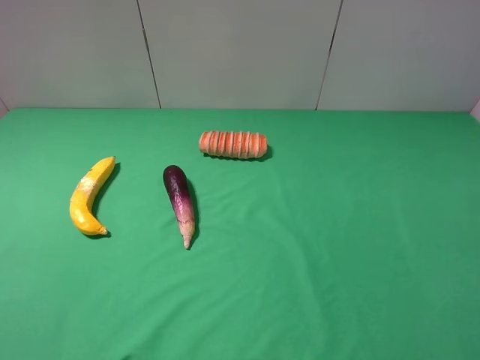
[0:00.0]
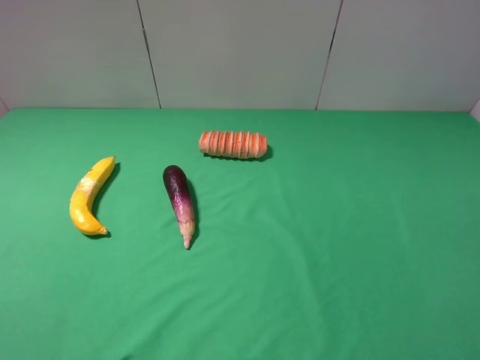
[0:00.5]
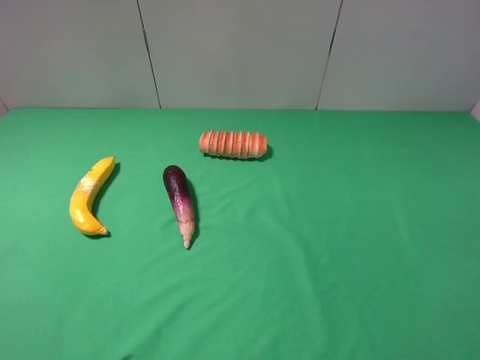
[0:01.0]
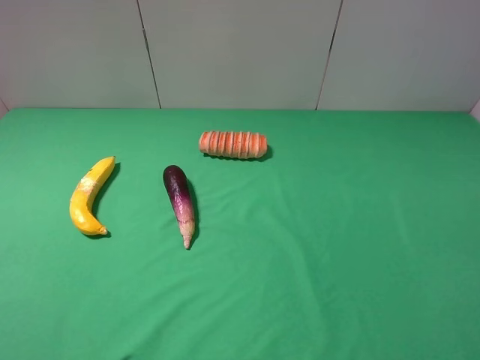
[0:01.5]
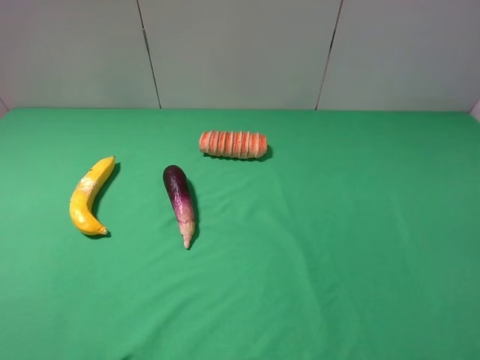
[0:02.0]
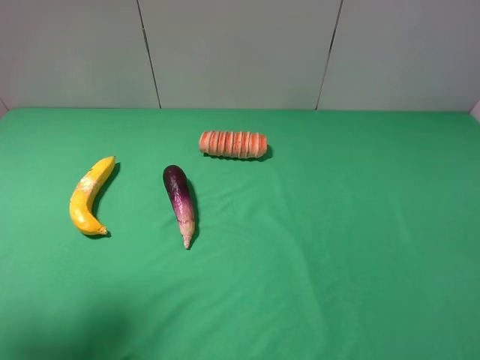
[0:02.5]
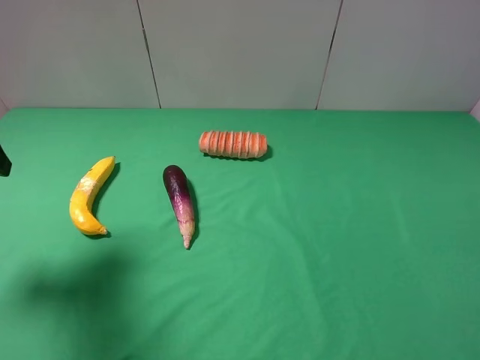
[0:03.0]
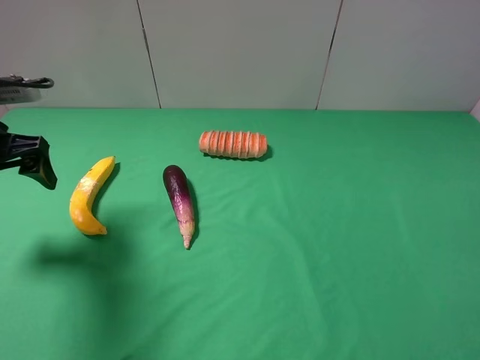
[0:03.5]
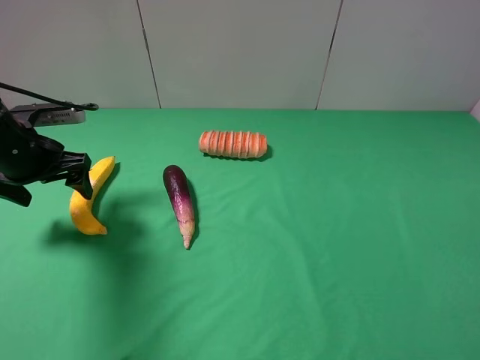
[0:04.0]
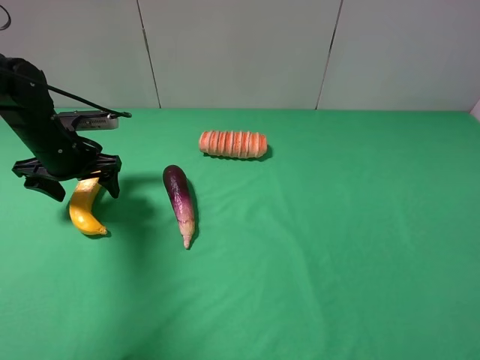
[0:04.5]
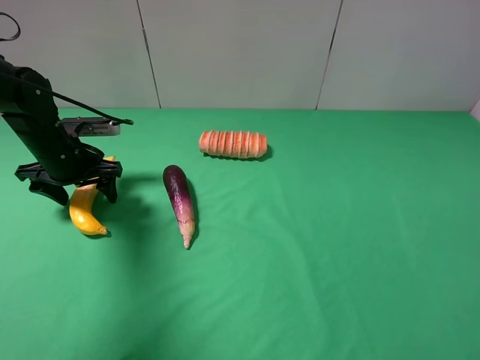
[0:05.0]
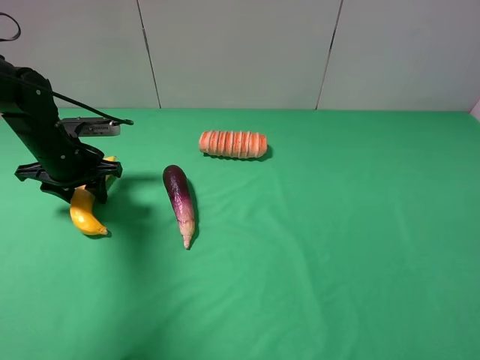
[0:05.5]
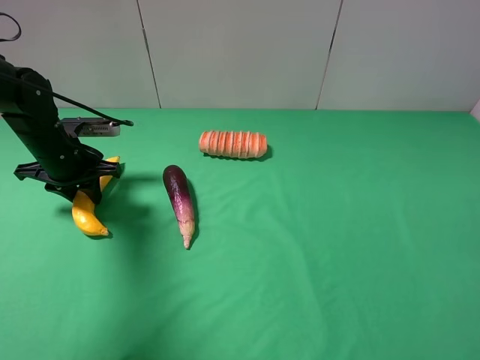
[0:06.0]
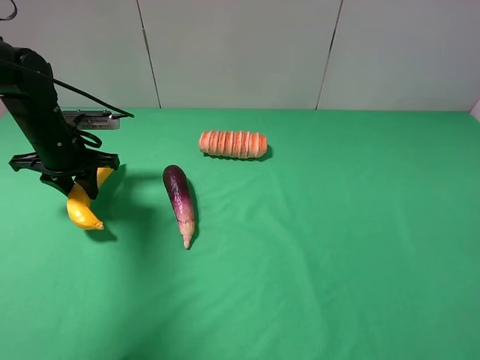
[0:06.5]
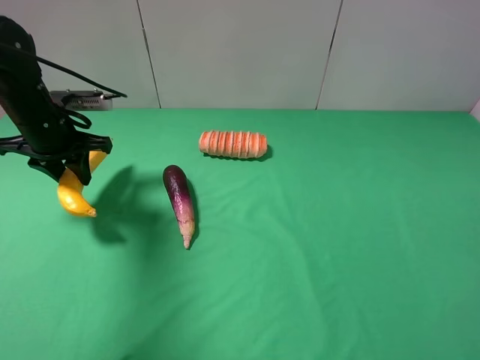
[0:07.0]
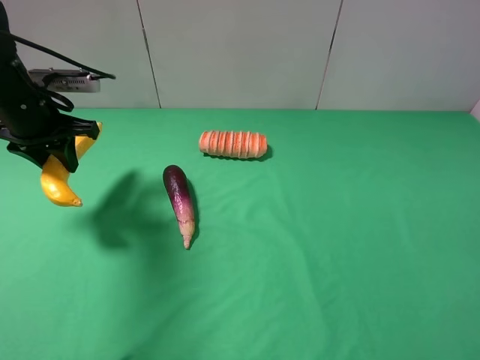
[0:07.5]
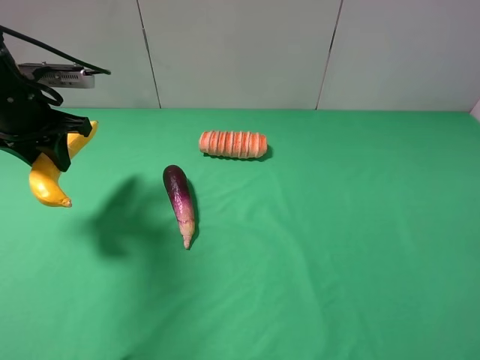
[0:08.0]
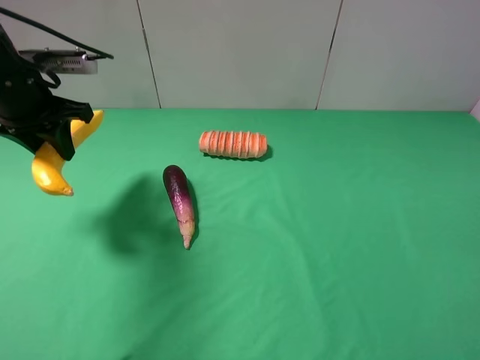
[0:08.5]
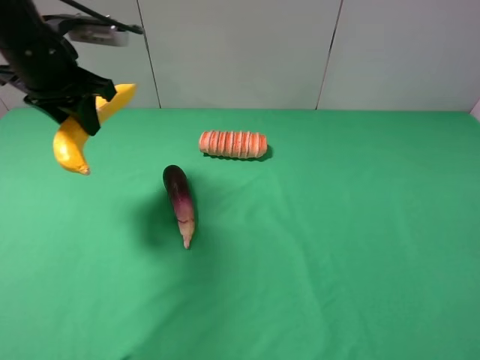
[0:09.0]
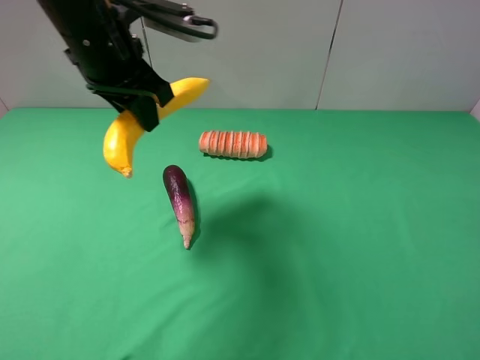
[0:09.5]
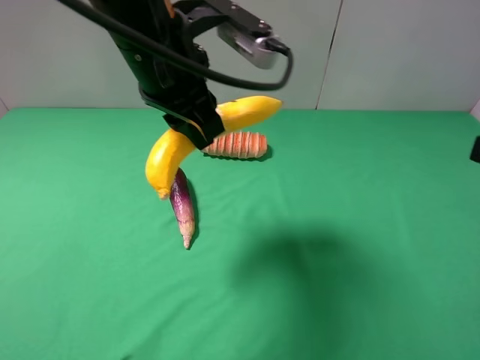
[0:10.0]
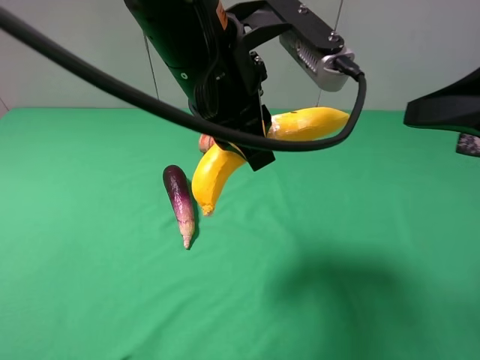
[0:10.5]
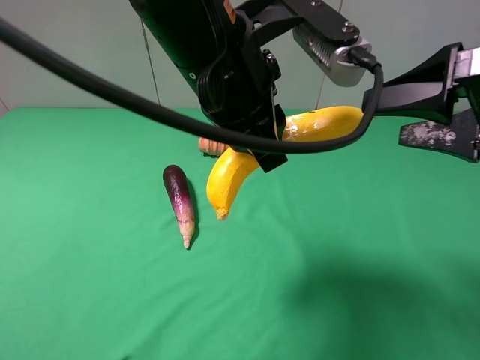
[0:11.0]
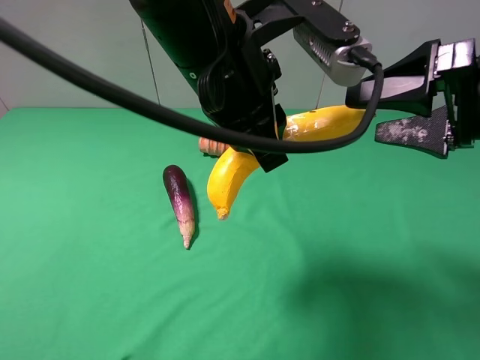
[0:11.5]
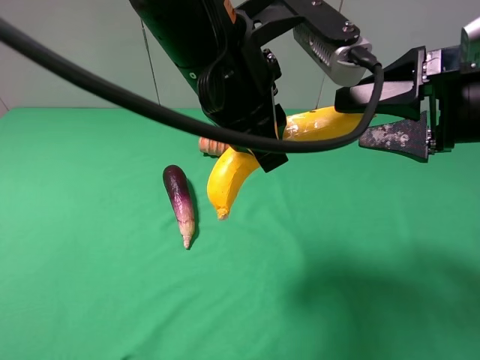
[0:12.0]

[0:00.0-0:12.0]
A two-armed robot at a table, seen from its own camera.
Task of the whole recording: use the left gripper to pick up the item and transfer it from the left gripper to the right gripper.
Step, 0:00.0 to 0:06.0: Use the left gripper to grab the banana on the left side of the table.
0:02.0 to 0:04.0: The left gripper shifts approximately 30 cm forward and downward.
0:04.0 to 0:06.0: The left gripper shifts by roughly 5 cm, and closes.
0:06.0 to 0:08.0: The left gripper heads upward, covering approximately 10 cm.
0:08.0 to 0:10.0: The right gripper is displaced forward by approximately 10 cm. The left gripper moves to the right, approximately 20 cm.
0:10.0 to 0:12.0: The left gripper goes approximately 5 cm to the right, while the right gripper heads forward, covering some 10 cm.

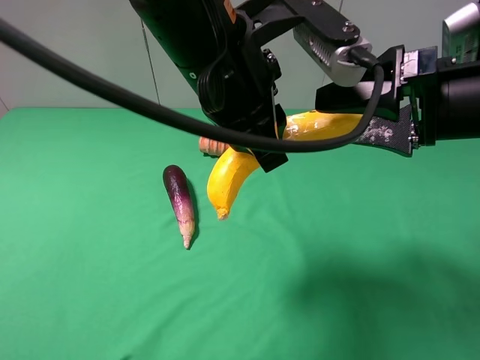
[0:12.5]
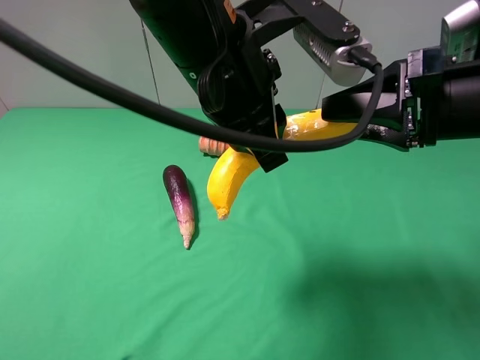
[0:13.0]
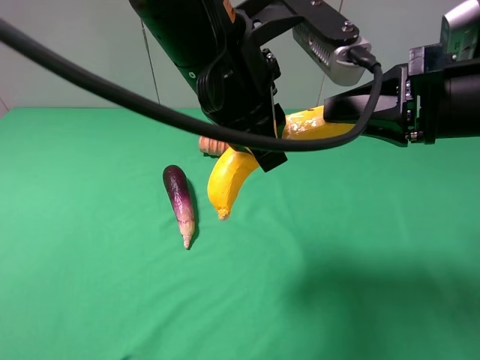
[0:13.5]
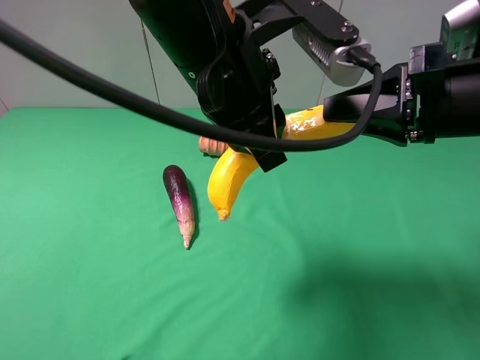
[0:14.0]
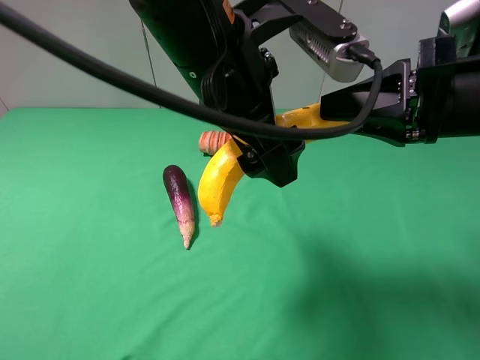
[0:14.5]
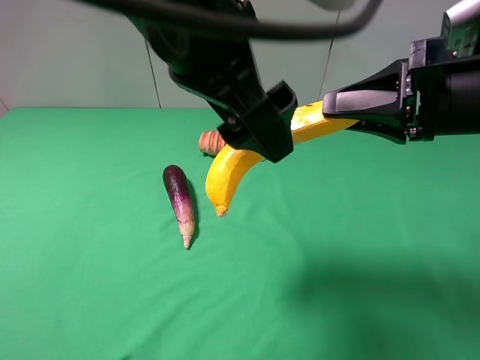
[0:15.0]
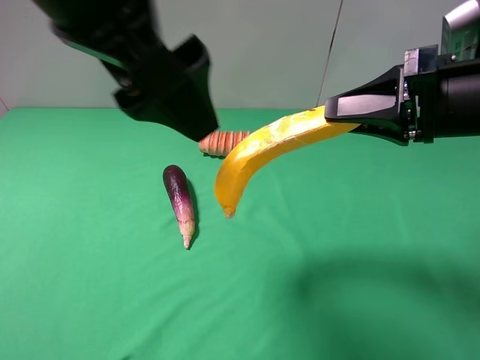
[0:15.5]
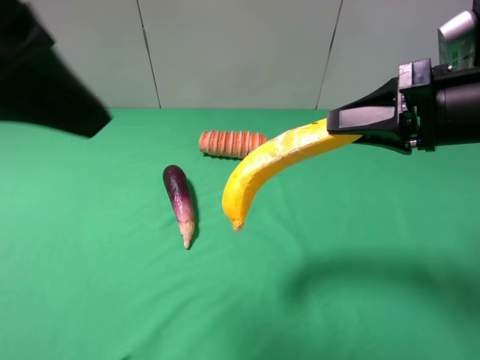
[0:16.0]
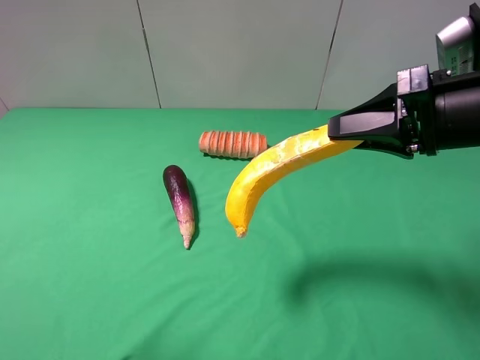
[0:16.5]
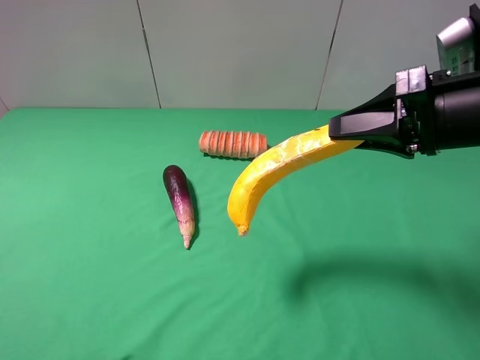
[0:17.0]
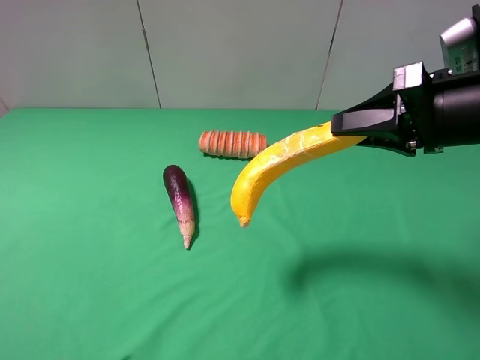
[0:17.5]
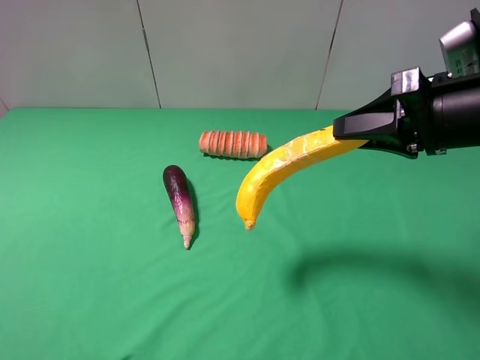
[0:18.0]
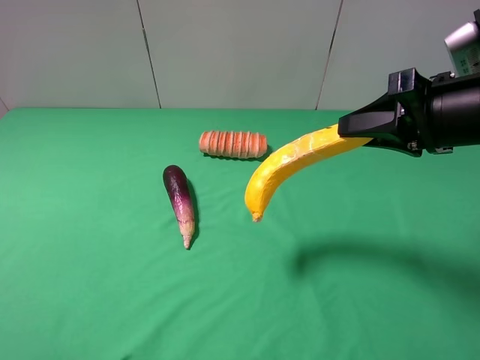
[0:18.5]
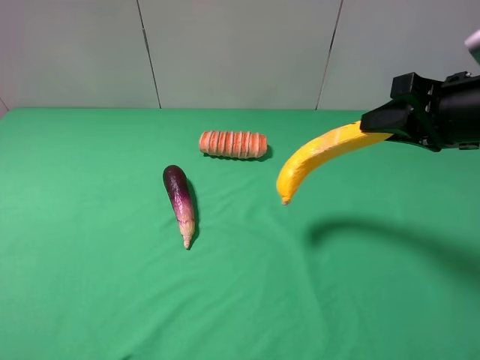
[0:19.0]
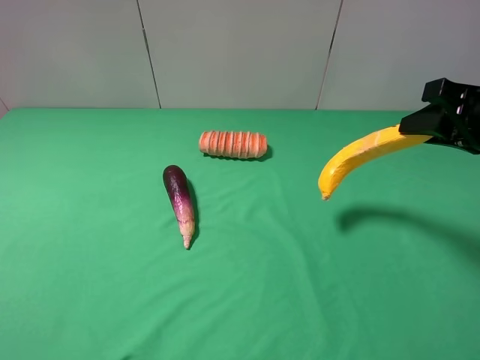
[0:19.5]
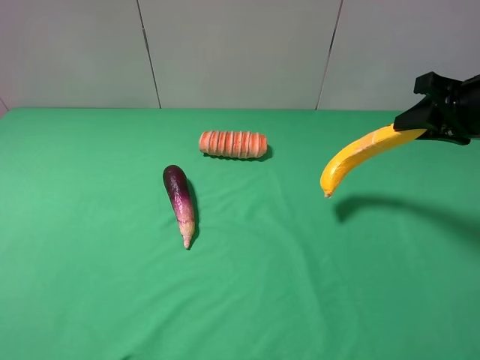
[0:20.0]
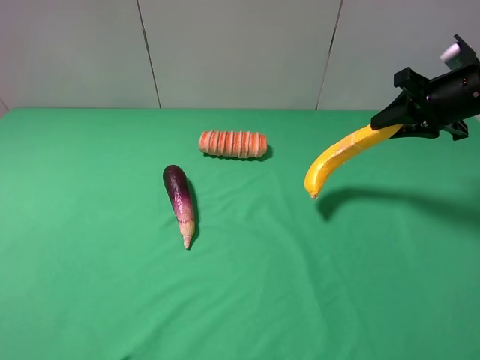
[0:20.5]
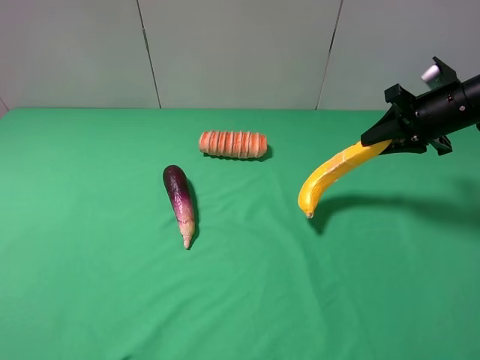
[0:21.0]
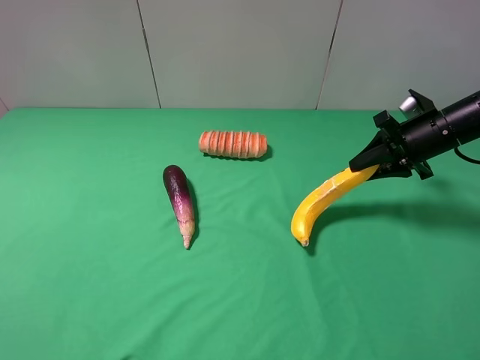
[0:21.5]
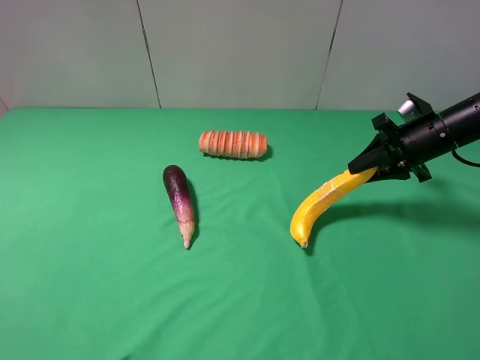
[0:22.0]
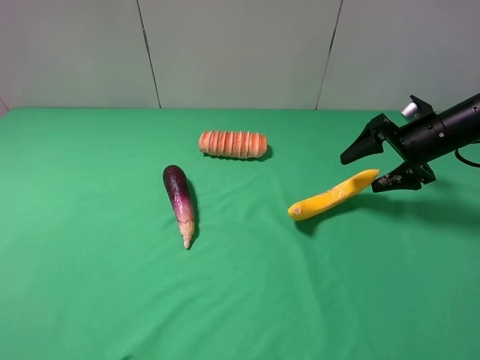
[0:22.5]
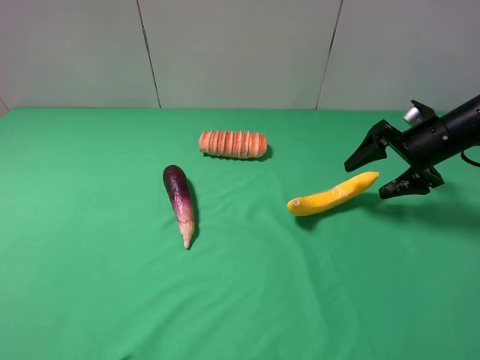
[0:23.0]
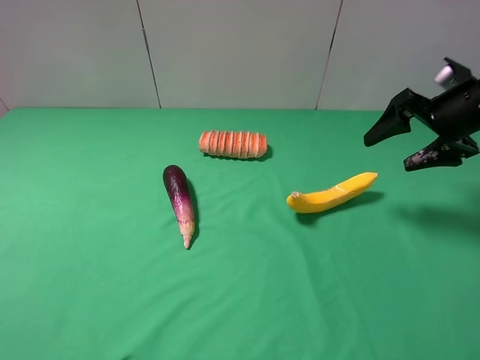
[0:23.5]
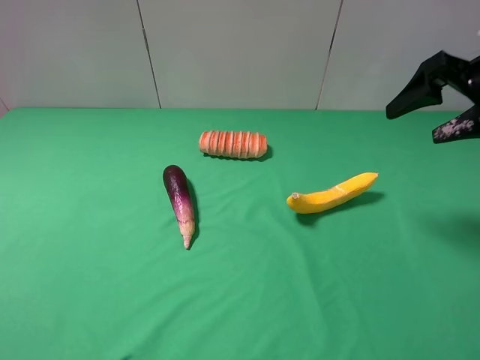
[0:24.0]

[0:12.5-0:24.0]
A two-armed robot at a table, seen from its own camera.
Task of the whole recording: use the left gripper to pick up the item and transfer it from the left gripper to the right gripper.
Step, 0:12.5 to 0:14.5: Pass the banana to the right gripper.
Step, 0:15.0 to 0:23.0: The right gripper places banana on the right side of the table.
0:12.5 to 0:14.5: The left gripper opens. Meanwhile the right gripper closes.
0:14.5 to 0:16.5: The left gripper heads to the left and backward, covering about 30 cm.
0:16.5 to 0:18.5: The left gripper shifts about 15 cm downward, to the left and backward.
0:18.5 to 0:20.0: The right gripper heads to the right and forward, covering approximately 10 cm.
0:20.0 to 0:22.0: The right gripper moves downward and forward, some 10 cm.
0:22.0 to 0:24.0: The right gripper goes roughly 15 cm upward and backward, and opens.

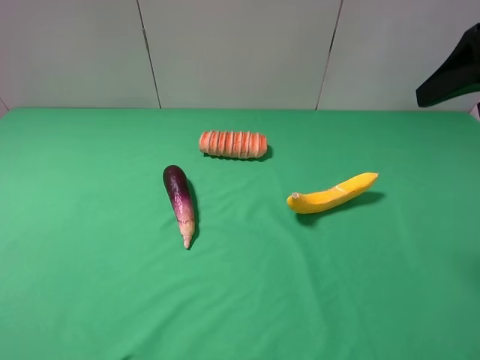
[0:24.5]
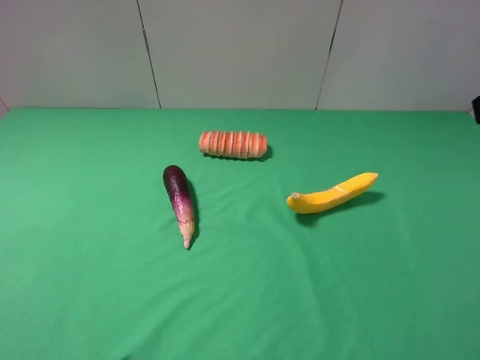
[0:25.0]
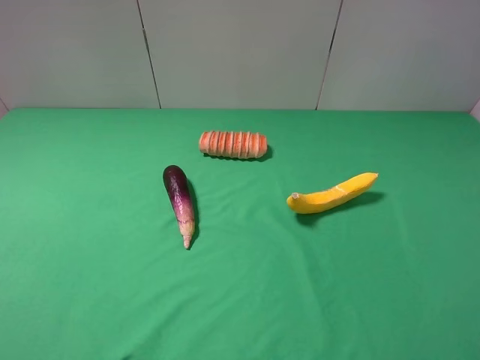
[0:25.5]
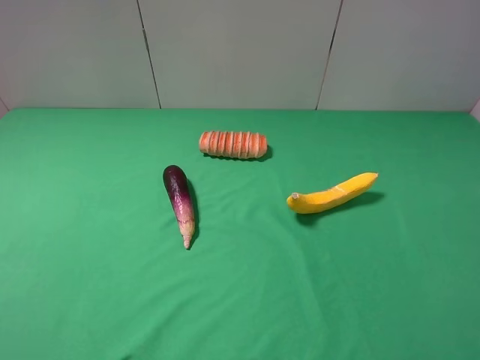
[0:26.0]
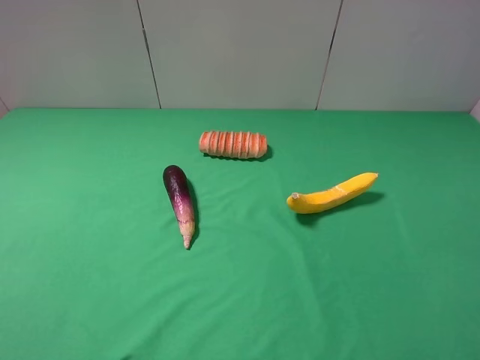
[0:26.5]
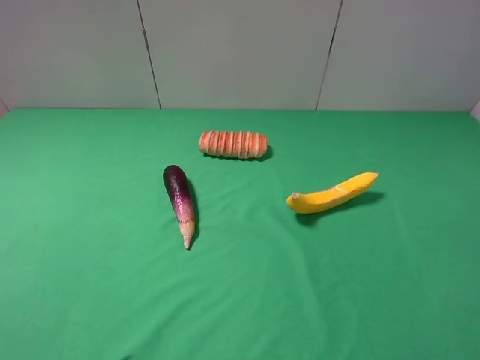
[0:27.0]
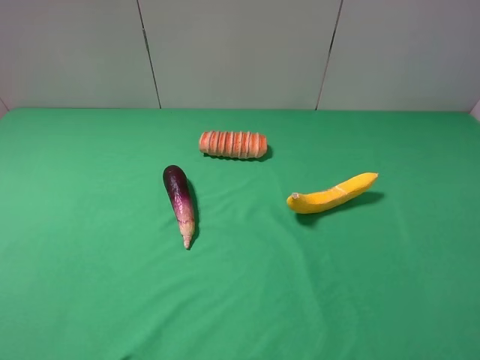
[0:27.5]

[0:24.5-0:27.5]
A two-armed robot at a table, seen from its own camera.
Task of the whole recording: use the left gripper to pick up the item and transfer it from the left gripper to the right gripper.
0:24.5 to 0:26.0: The right gripper is displaced backward by about 20 cm.
